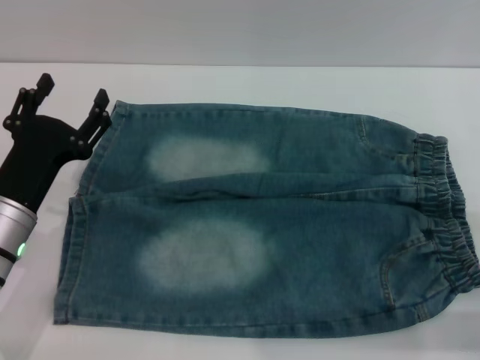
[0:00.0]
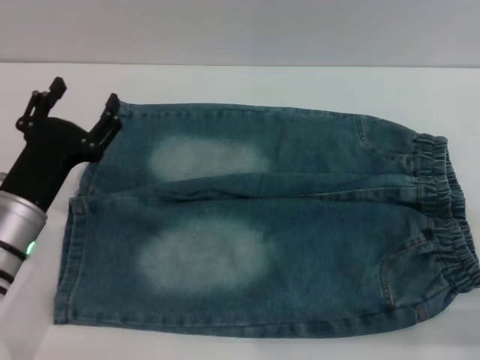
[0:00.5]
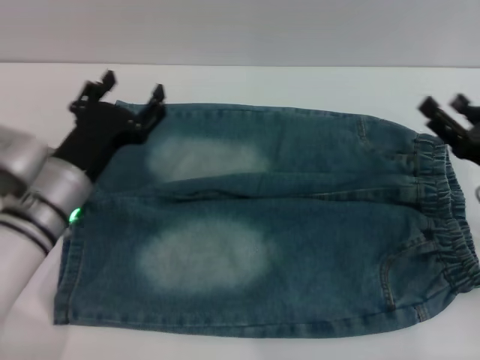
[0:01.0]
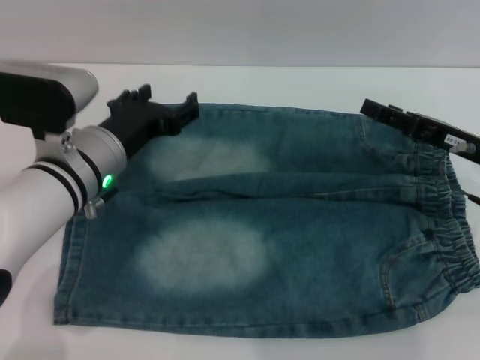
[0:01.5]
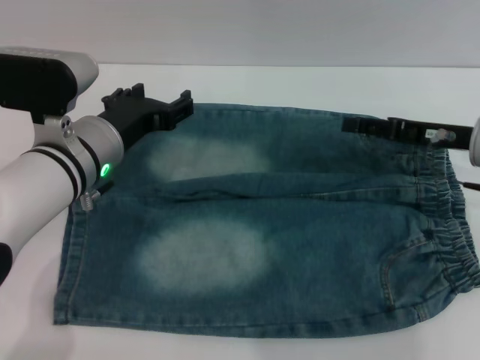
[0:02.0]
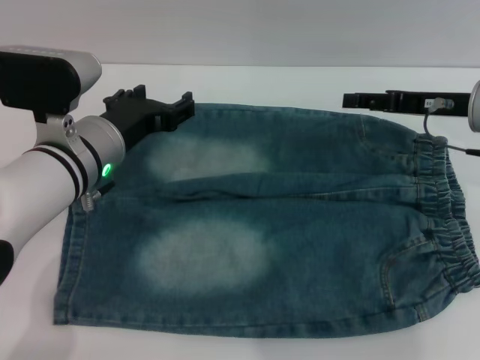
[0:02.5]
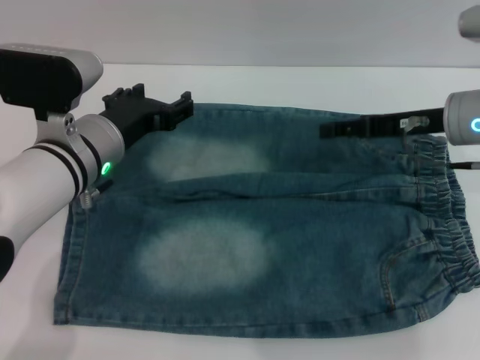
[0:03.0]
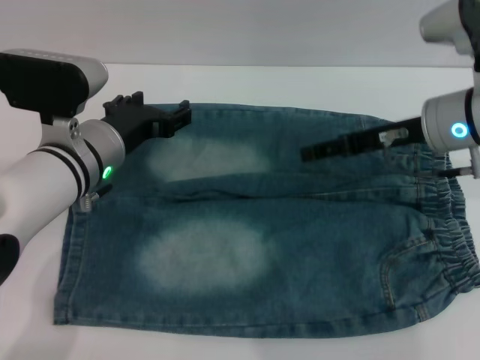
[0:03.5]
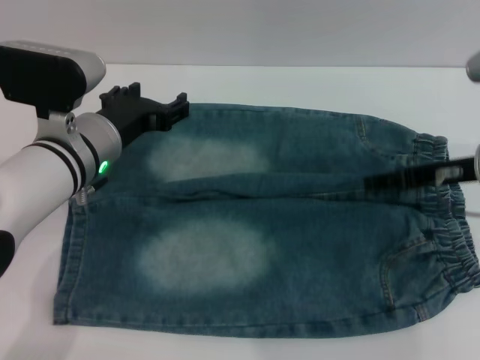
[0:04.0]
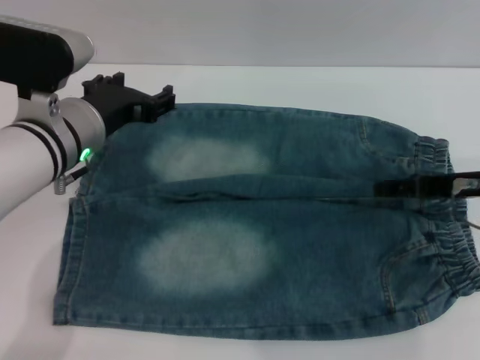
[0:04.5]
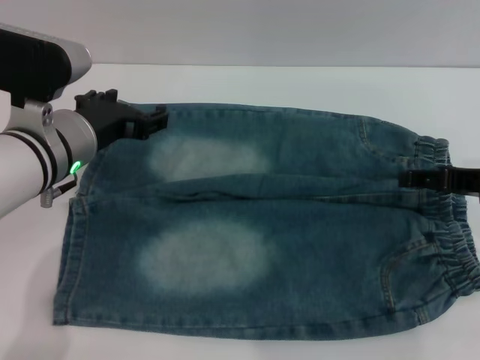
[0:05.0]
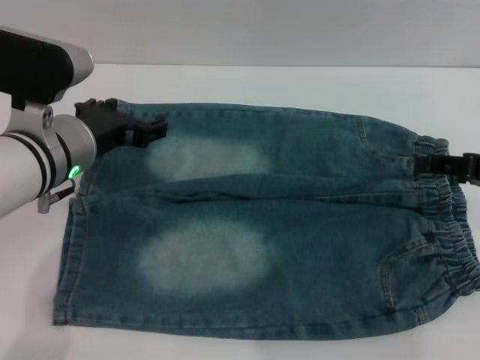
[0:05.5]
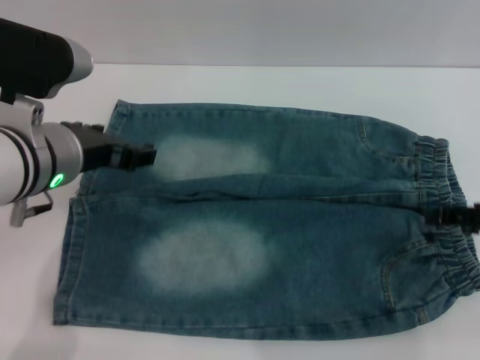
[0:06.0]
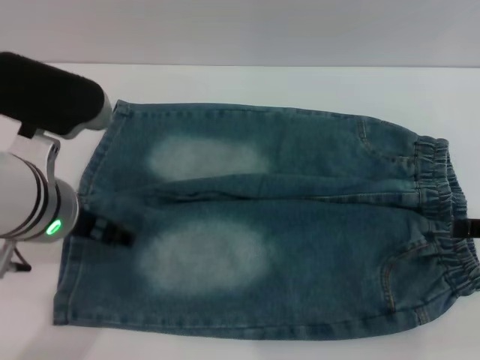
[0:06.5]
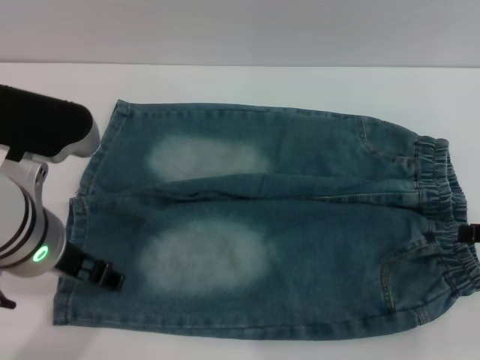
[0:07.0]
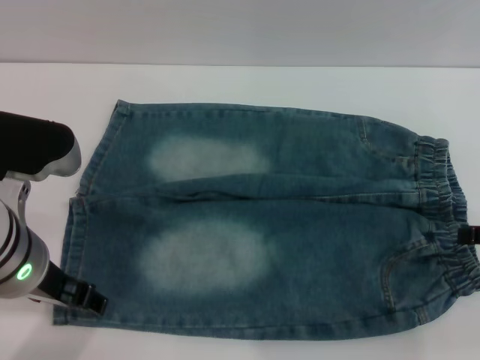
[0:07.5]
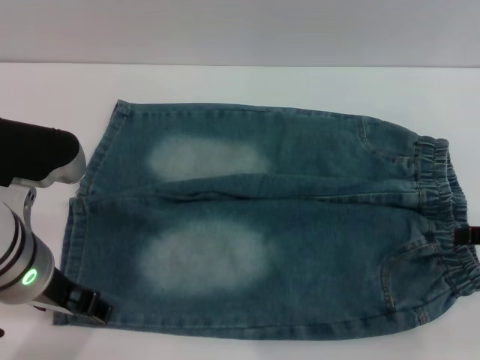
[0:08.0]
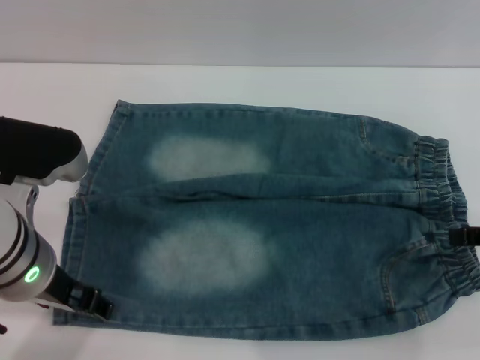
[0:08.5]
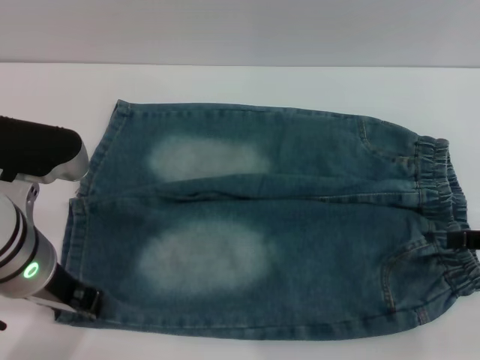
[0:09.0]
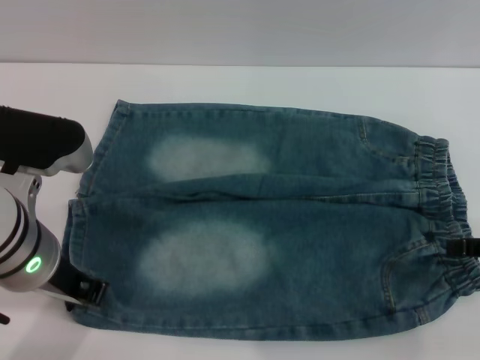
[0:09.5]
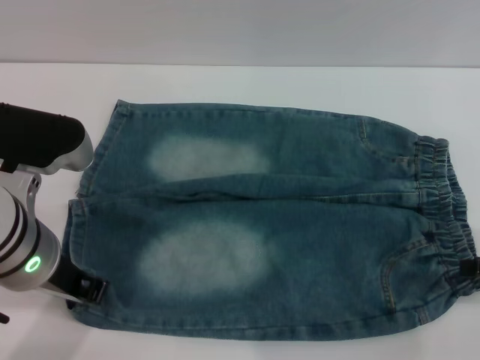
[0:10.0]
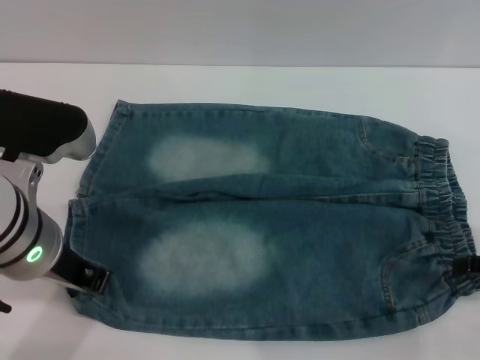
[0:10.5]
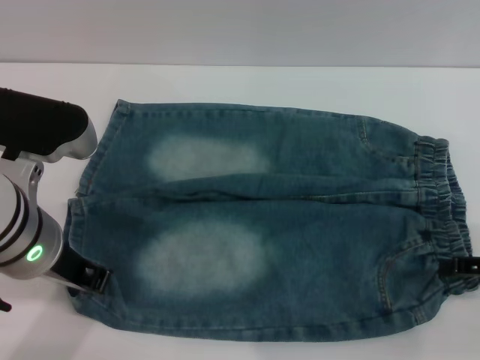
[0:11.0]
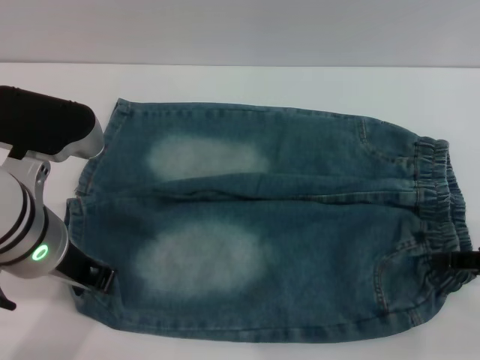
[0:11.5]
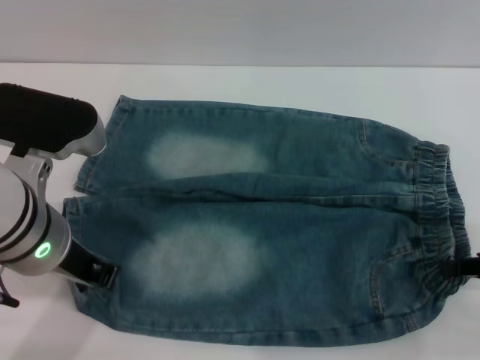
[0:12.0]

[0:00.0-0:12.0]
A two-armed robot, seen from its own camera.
0:00.0 to 0:02.0: The right gripper shifts about 20 cm forward. The left gripper heads to the right, forward and upward, covering about 10 cm.
0:02.0 to 0:04.0: The right gripper changes place by approximately 5 cm.
0:04.0 to 0:06.0: The left gripper goes roughly 5 cm upward, while the right gripper shifts roughly 10 cm backward and to the right.
0:06.0 to 0:08.0: The left gripper moves backward, roughly 5 cm.
0:08.0 to 0:10.0: The left gripper closes up.
0:10.0 to 0:12.0: The right gripper closes.

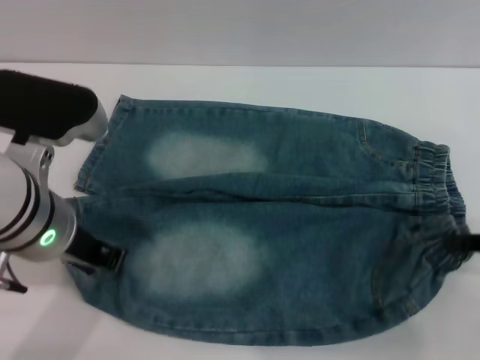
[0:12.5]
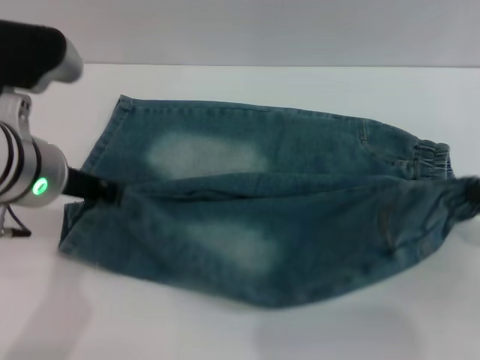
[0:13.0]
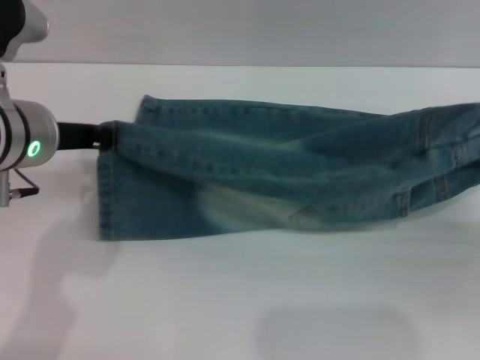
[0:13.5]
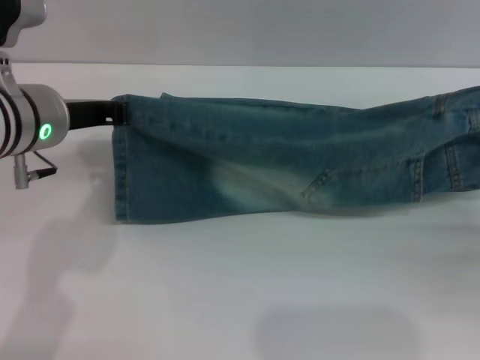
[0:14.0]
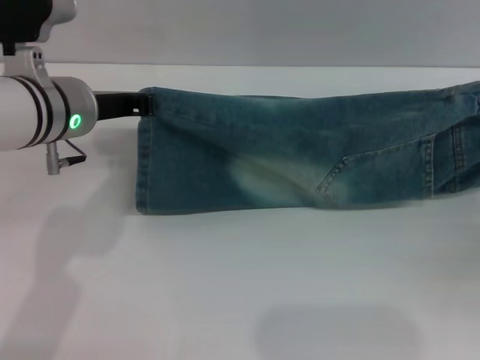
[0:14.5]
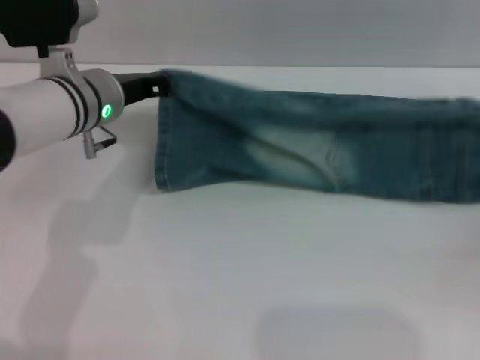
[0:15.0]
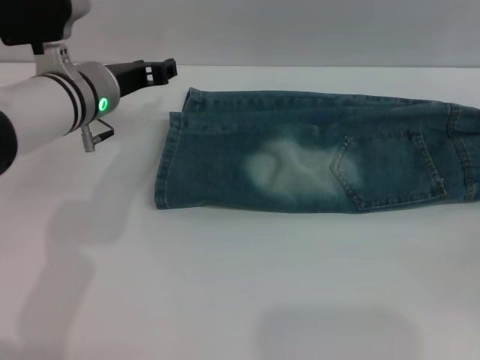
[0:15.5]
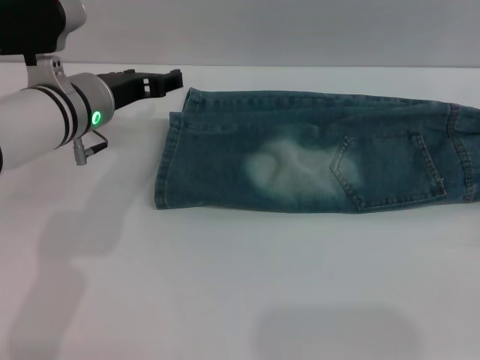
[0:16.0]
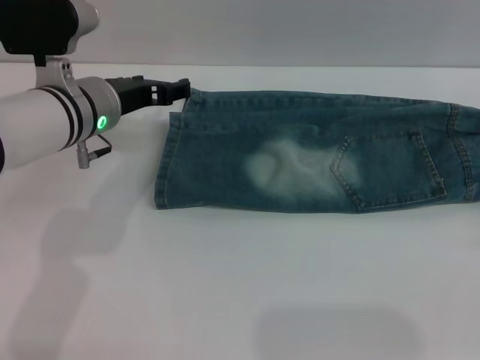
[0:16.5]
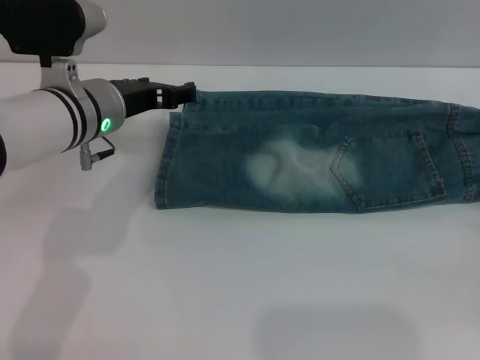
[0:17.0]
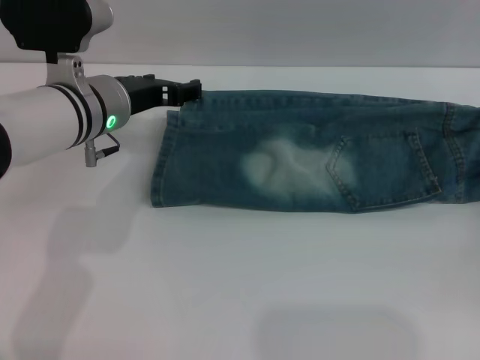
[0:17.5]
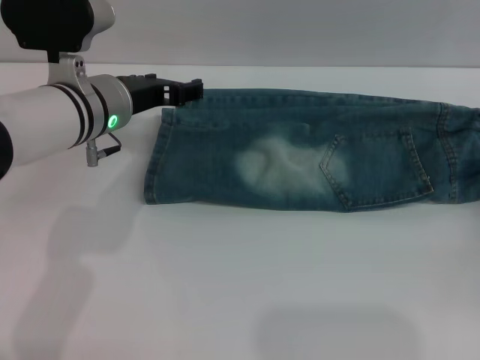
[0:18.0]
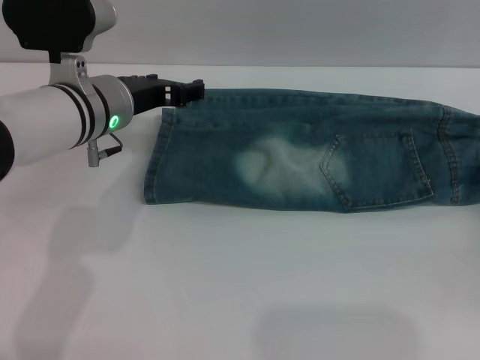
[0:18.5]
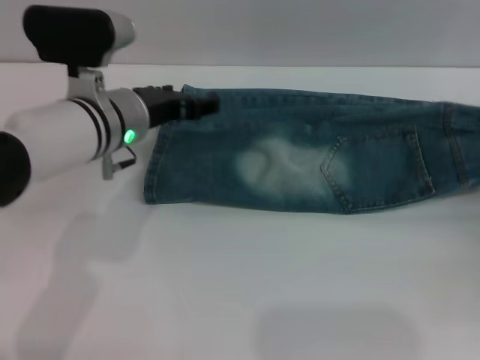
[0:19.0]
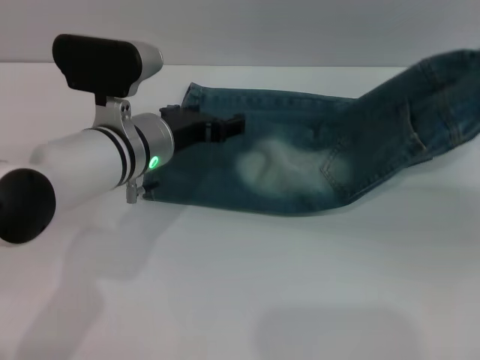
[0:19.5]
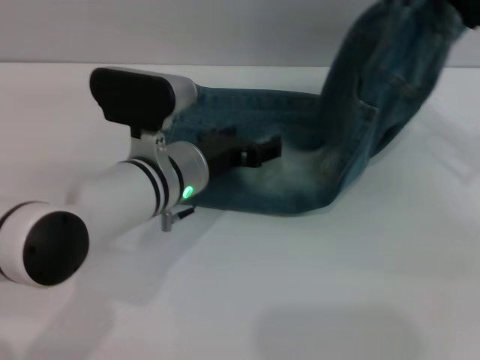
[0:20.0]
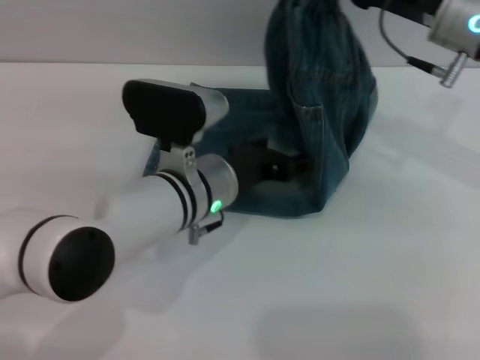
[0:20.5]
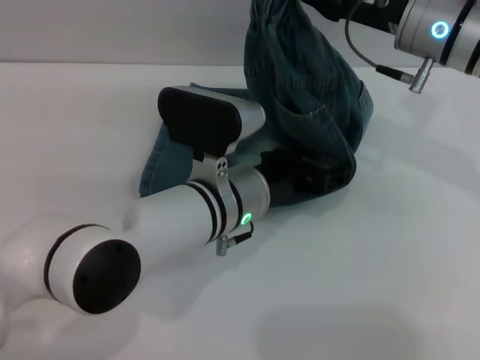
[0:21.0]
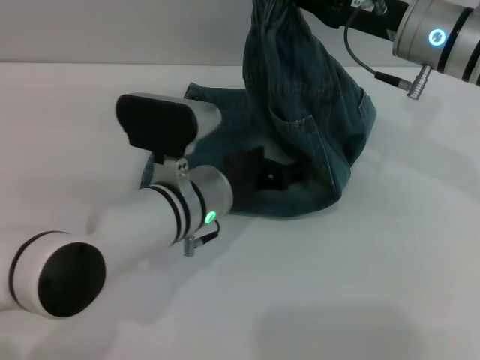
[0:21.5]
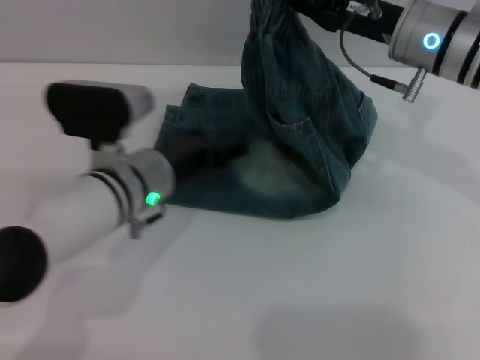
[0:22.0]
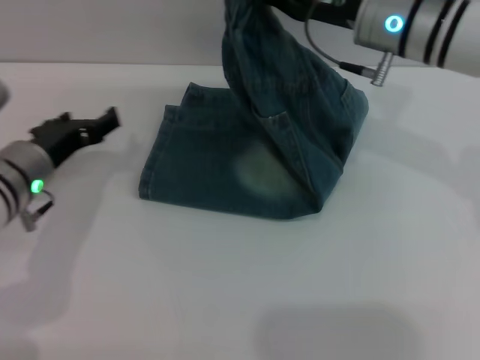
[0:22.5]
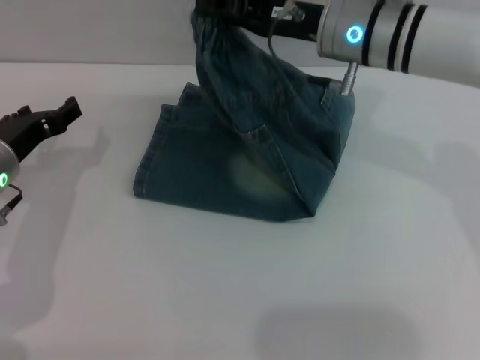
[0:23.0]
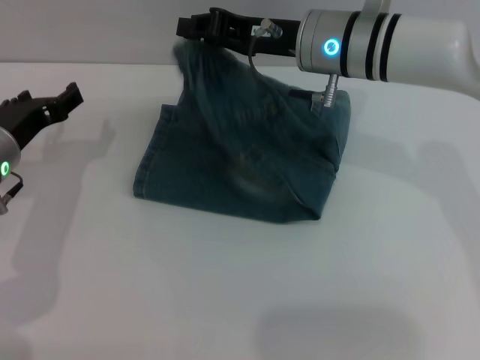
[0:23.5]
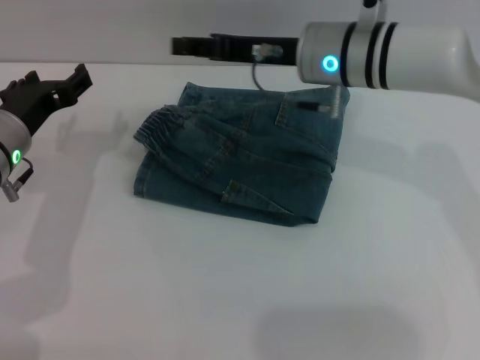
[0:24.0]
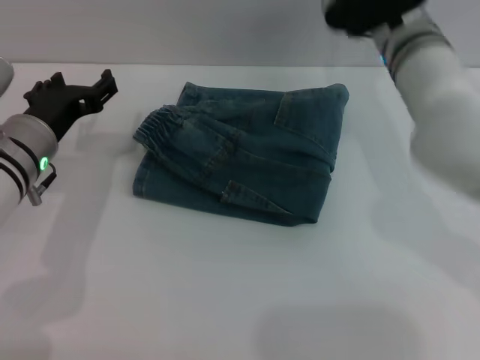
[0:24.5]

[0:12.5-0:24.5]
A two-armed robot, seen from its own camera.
Step, 0:12.5 to 0:15.0: Fold the bottom of the pants upward with both grippers.
Step, 0:15.5 to 0:23.5: Fold the pants from right to left with the right gripper.
0:12.5 to 0:14.5: The left gripper heads forward, covering roughly 10 cm; the right gripper changes place by about 5 cm.
0:14.5 to 0:16.5: The left gripper opens up; the right gripper shifts some 5 cm downward, and opens.
0:16.5 to 0:18.5: The right gripper closes.
0:18.5 to 0:20.5: The left gripper is displaced to the right and backward by about 10 cm, while the right gripper goes some 30 cm to the left, upward and forward.
0:20.5 to 0:22.5: The right gripper travels to the left by roughly 5 cm; the left gripper heads to the left, covering roughly 15 cm.
0:22.5 to 0:24.5: The right gripper opens its fingers.

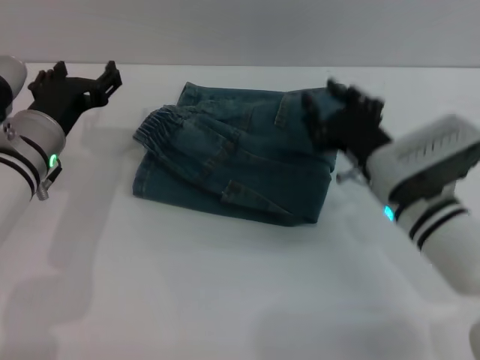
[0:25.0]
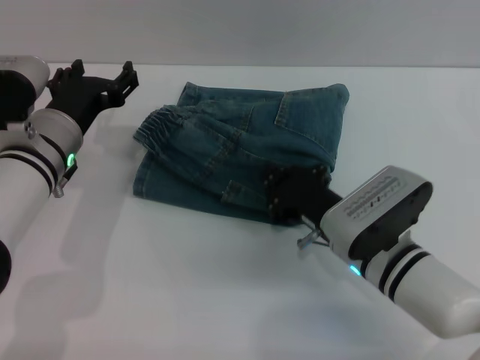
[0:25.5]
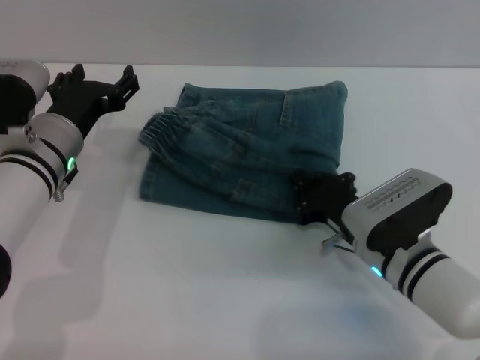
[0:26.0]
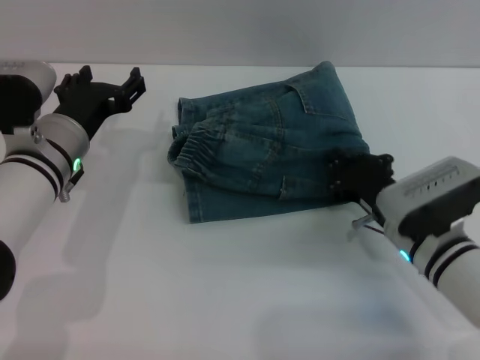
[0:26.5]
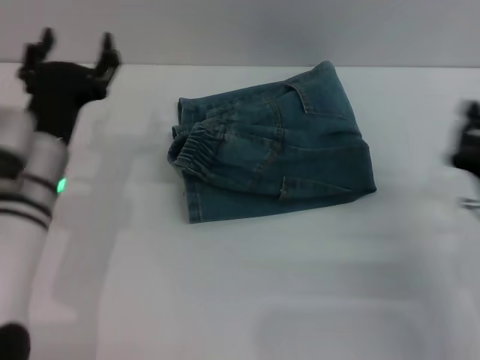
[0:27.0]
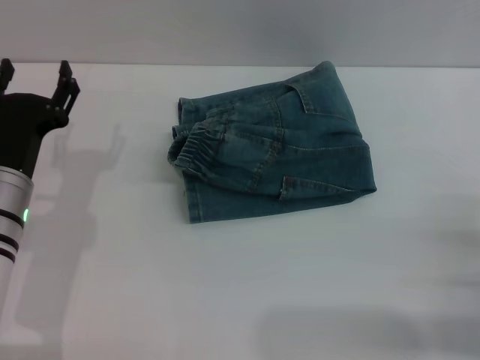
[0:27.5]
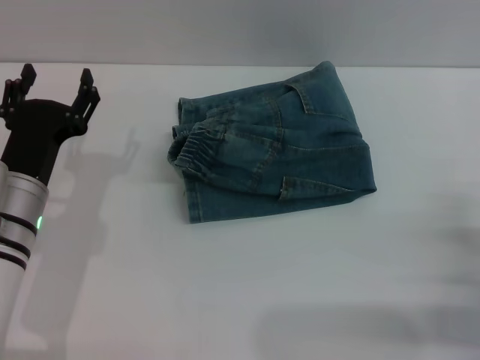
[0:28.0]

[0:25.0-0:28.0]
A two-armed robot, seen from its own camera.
Step, 0:25.0 to 0:26.5: Place the folded trousers onto the center area with the right grippers.
0:25.0 to 0:26.5: The right gripper closes.
0:26.5 to 0:28.0: The left gripper heads backward, covering about 5 cm, while the right gripper travels to the right and backward by roughly 15 cm, and opens its fingers.
